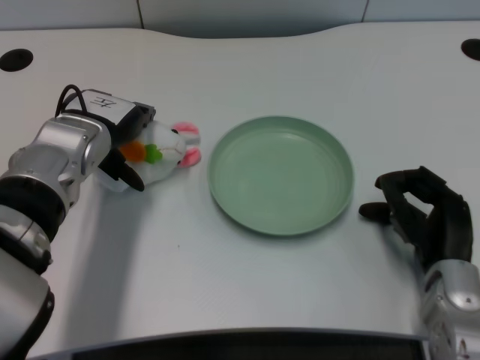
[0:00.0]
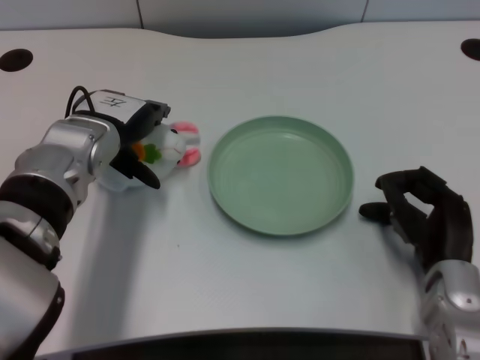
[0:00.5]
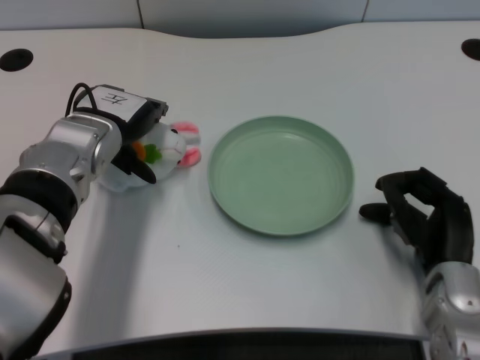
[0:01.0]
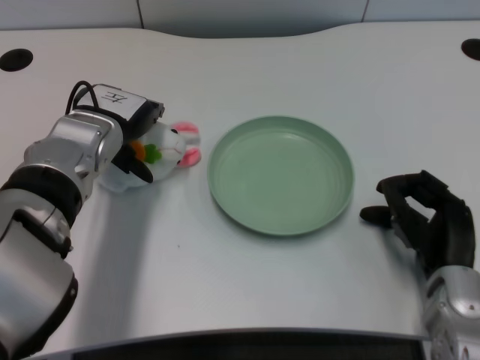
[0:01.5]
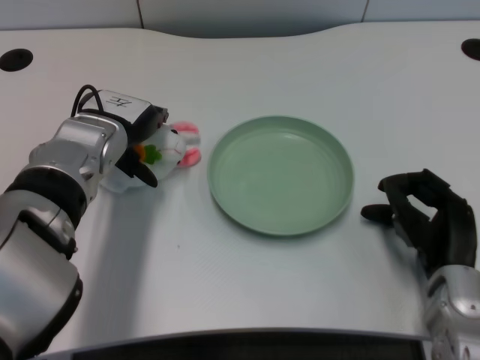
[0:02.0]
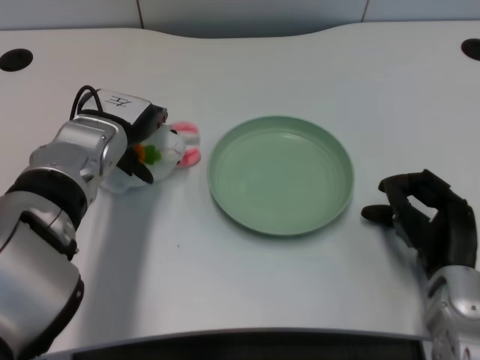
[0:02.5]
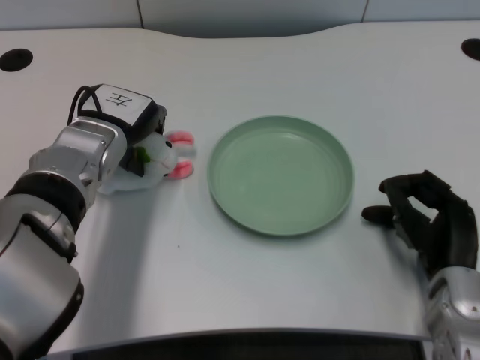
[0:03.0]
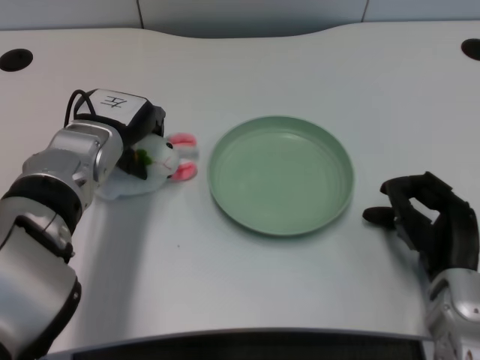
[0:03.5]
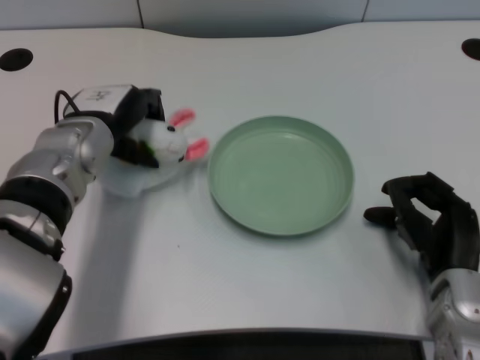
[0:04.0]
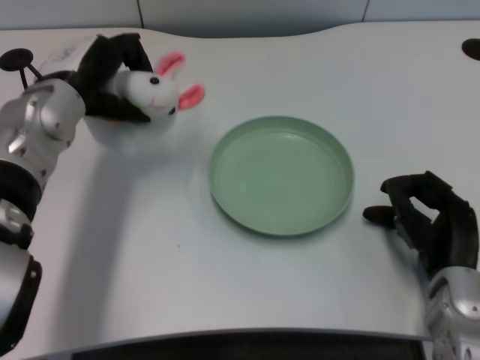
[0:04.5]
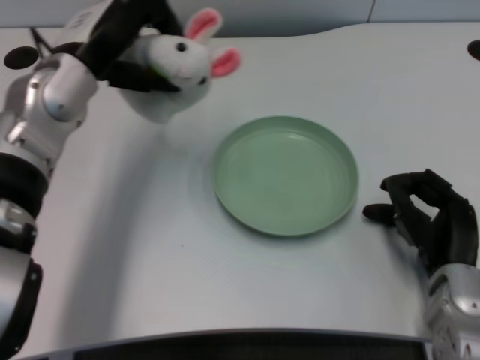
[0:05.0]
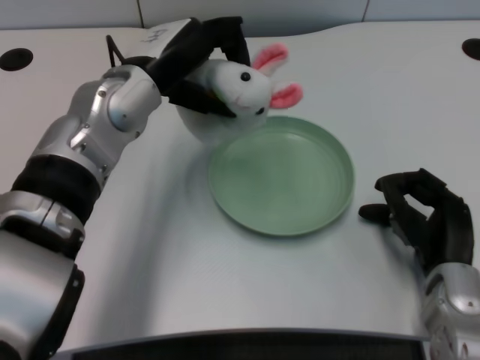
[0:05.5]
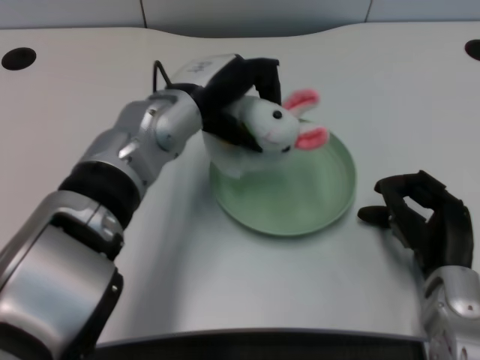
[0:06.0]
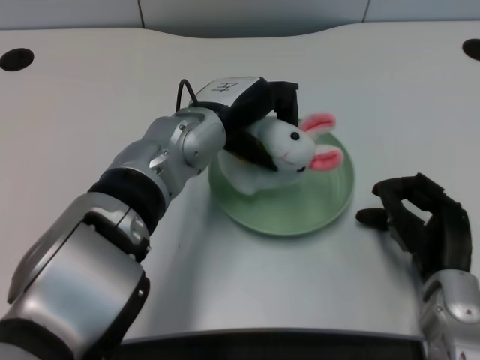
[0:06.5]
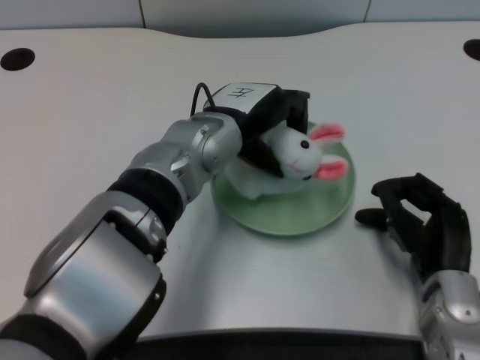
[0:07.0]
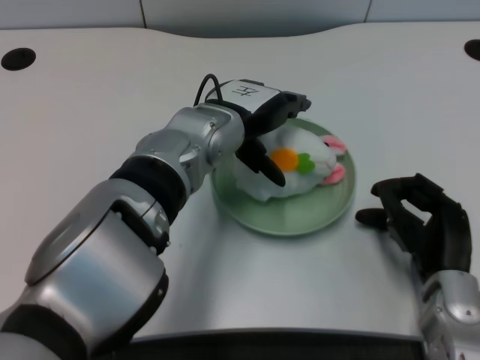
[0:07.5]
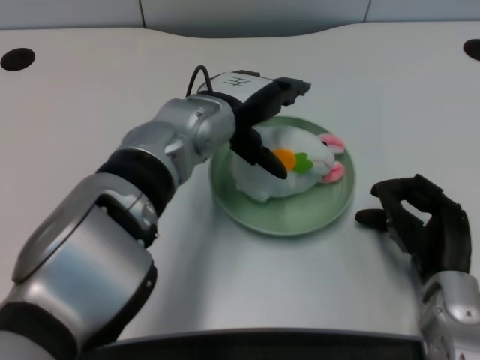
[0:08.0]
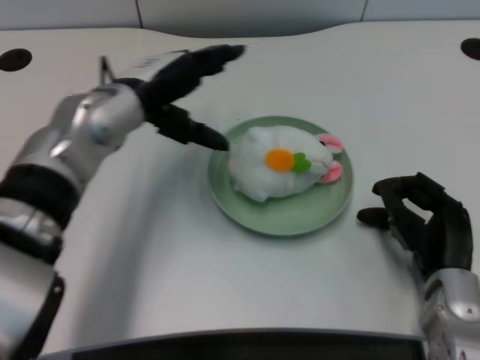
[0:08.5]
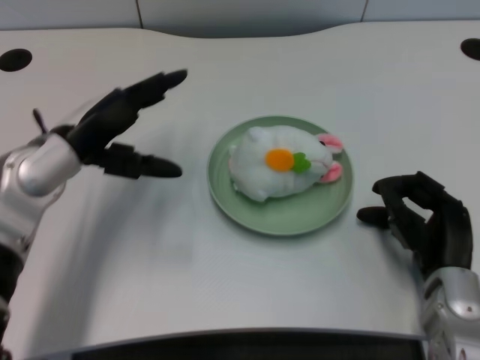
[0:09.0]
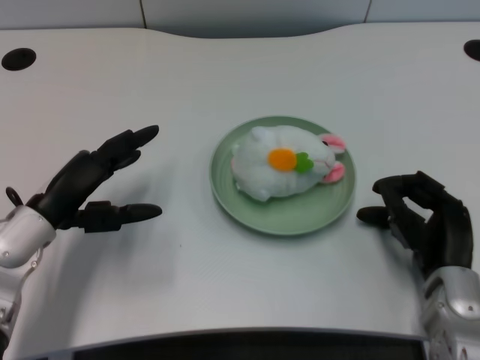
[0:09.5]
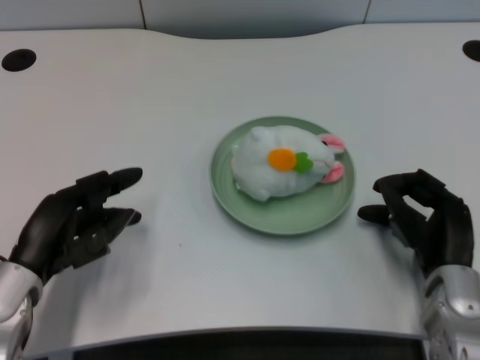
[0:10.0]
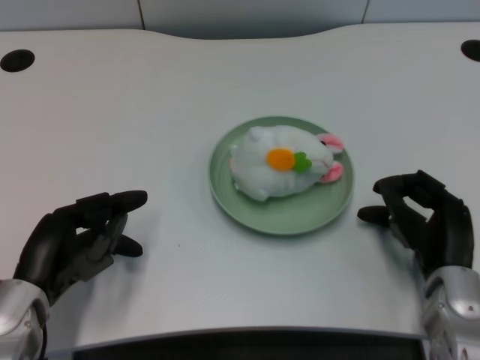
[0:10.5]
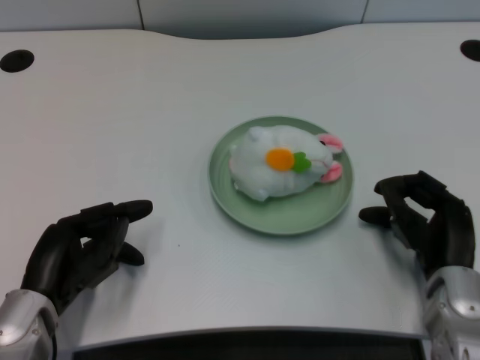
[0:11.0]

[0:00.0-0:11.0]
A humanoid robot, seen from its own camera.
Task of the whole recording: pick up the rabbit doll from the table and place it on the plate.
Step, 0:00.0 to 0:03.5: Grasp the rabbit doll with the left gripper.
Step, 0:04.0 to 0:07.5: Place the rabbit doll into the plate with the left gripper.
0:00.0 to 0:03.5: The hands make only small movements.
0:03.5 to 0:05.5: The left hand is displaced upward by about 5 cm.
0:05.5 to 0:07.5: The left hand shifts approximately 10 cm to the right.
0:07.5 to 0:09.0: The left hand travels to the left by some 15 cm.
0:09.0 to 0:11.0: The left hand heads backward and downward, covering approximately 15 cm.

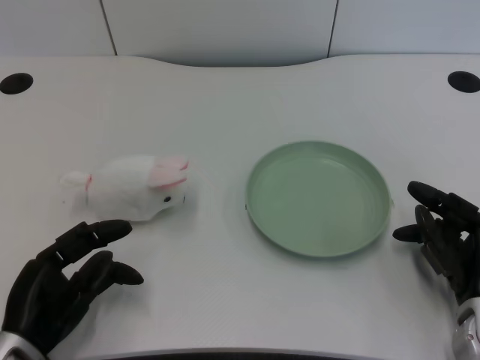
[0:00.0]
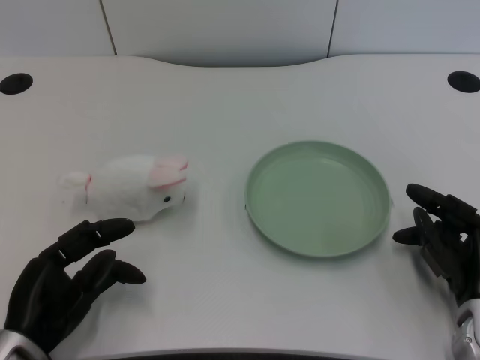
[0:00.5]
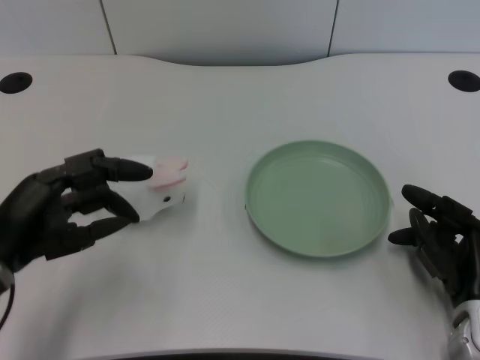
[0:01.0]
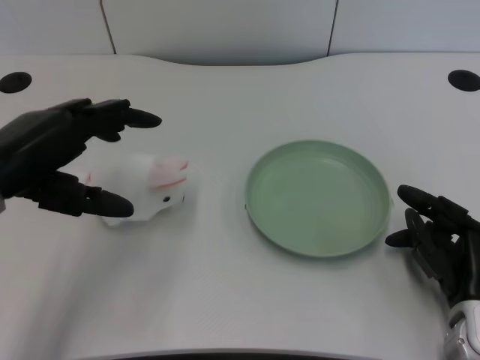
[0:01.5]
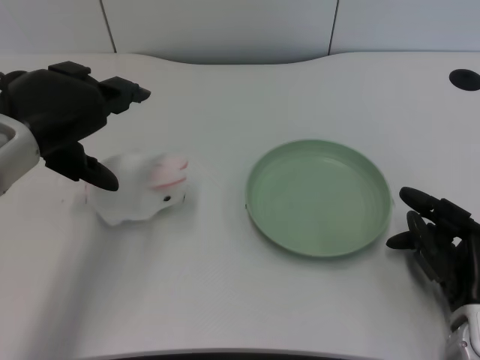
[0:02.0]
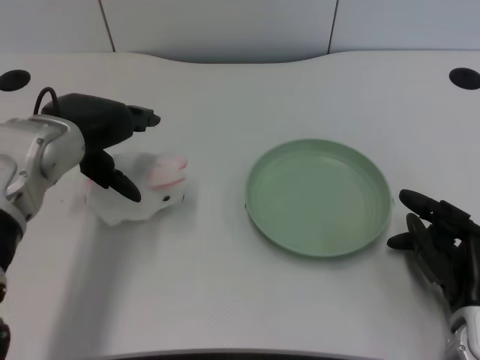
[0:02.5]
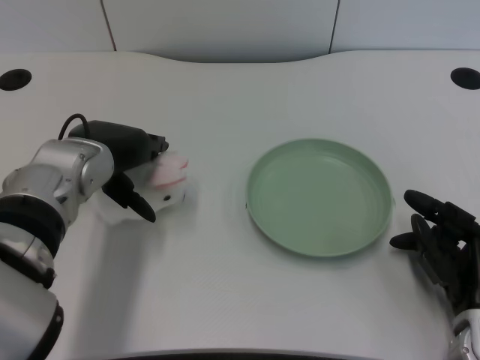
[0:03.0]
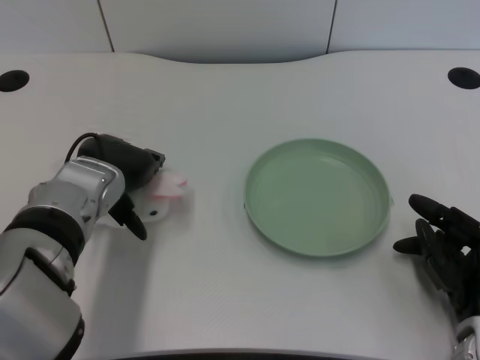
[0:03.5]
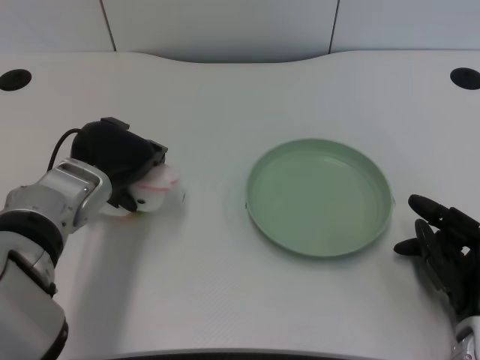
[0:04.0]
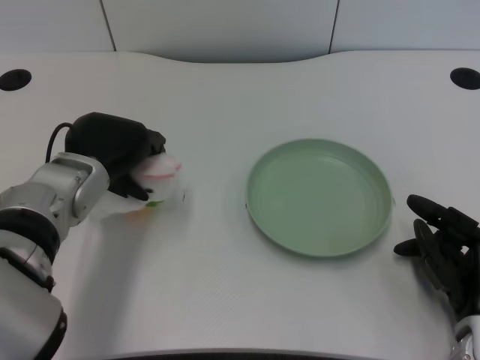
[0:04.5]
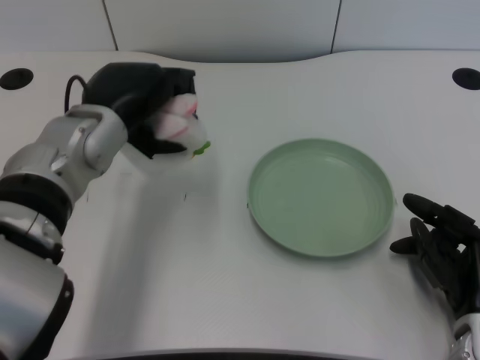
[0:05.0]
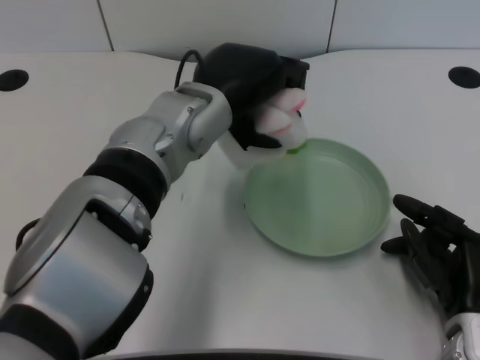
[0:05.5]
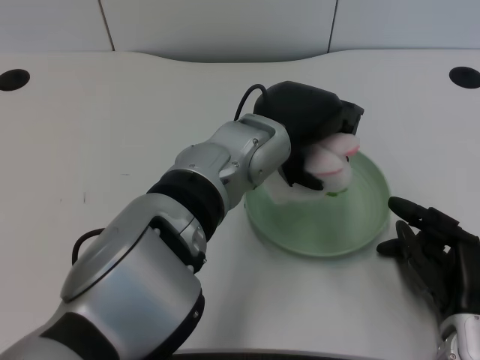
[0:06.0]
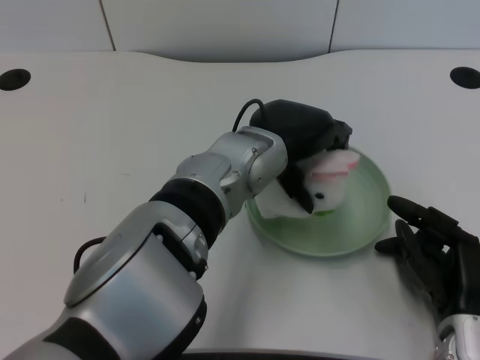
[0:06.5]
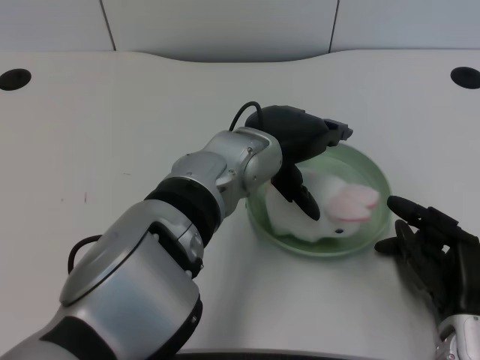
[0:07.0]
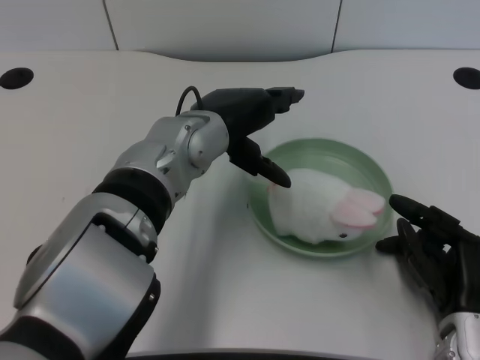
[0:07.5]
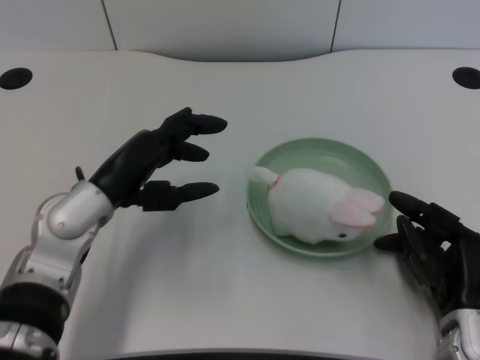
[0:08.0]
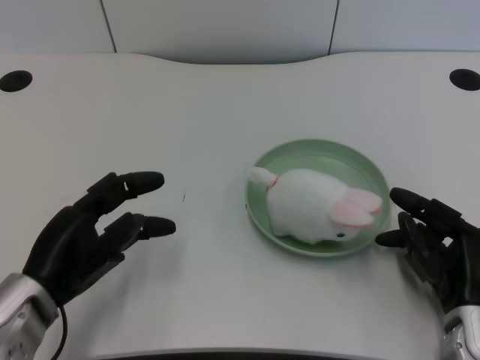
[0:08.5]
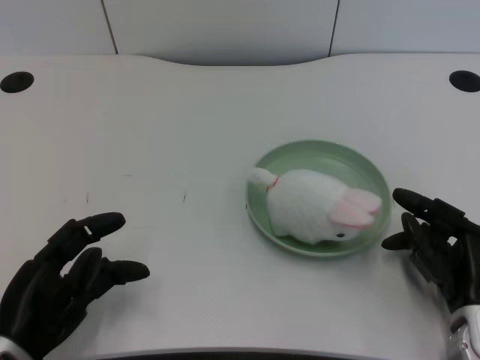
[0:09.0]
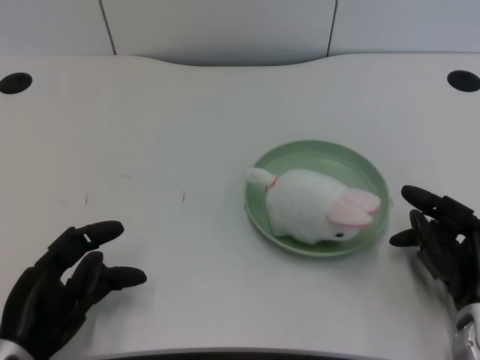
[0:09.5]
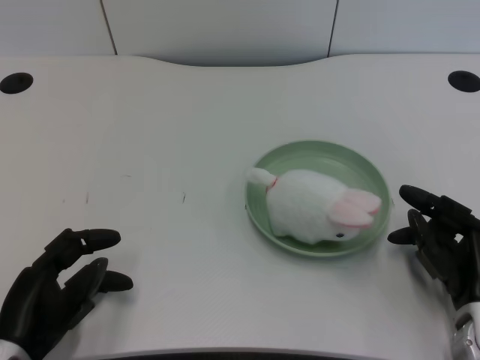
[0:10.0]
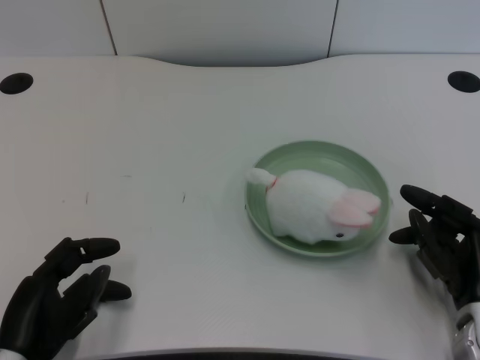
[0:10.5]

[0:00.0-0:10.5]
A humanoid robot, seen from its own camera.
Task of the whole recording: pick up the rabbit doll from the table and place it on the plate.
Step, 0:01.0 to 0:04.5: Grasp the rabbit doll with the left gripper.
Step, 0:05.0 to 0:06.5: Place the rabbit doll into the plate with the left gripper.
0:02.0 to 0:04.0: The left hand travels downward by about 10 cm.
0:04.0 to 0:06.5: The left hand is displaced to the right by about 15 cm.
0:06.5 to 0:08.5: The left hand goes about 25 cm to the left and backward.
0:08.5 to 0:10.5: The left hand moves backward, some 5 cm.
